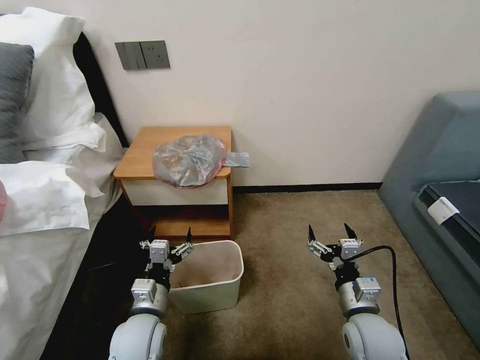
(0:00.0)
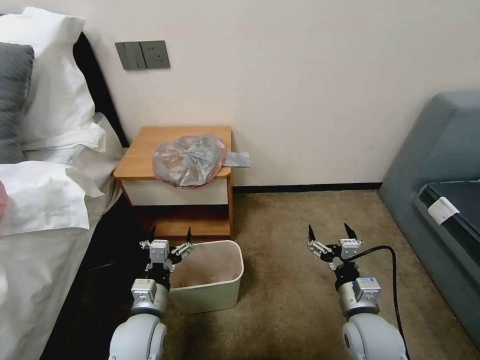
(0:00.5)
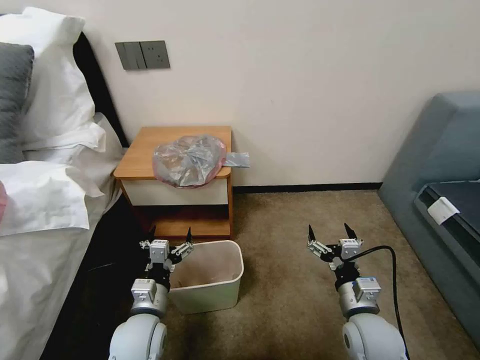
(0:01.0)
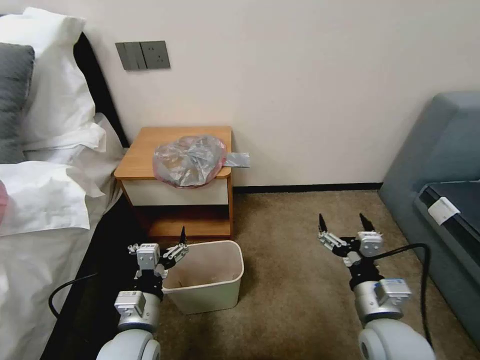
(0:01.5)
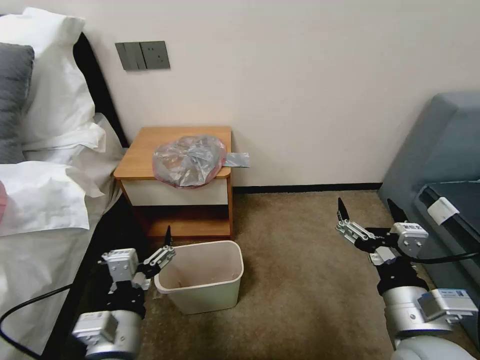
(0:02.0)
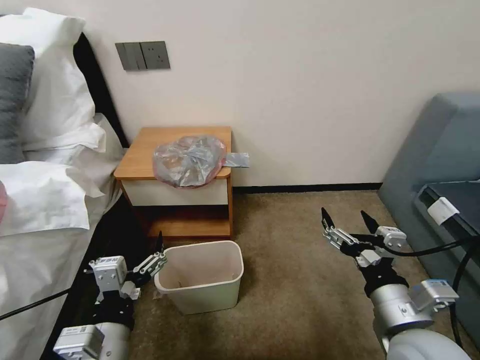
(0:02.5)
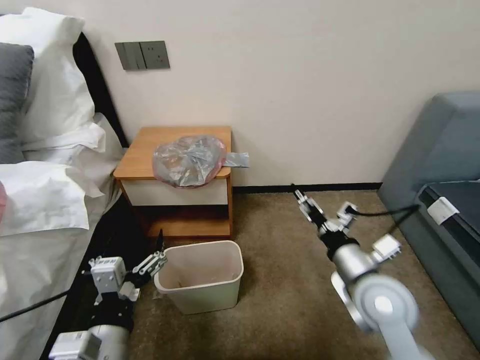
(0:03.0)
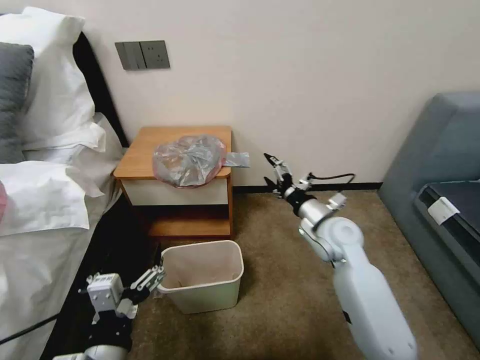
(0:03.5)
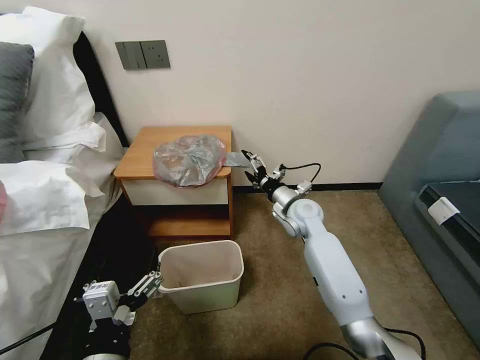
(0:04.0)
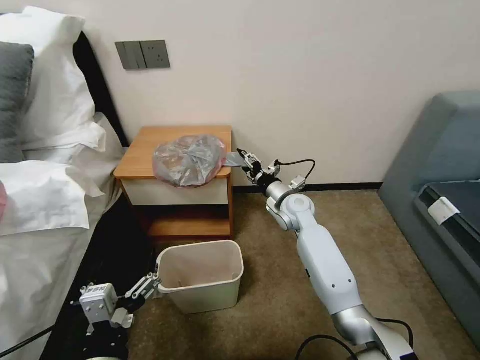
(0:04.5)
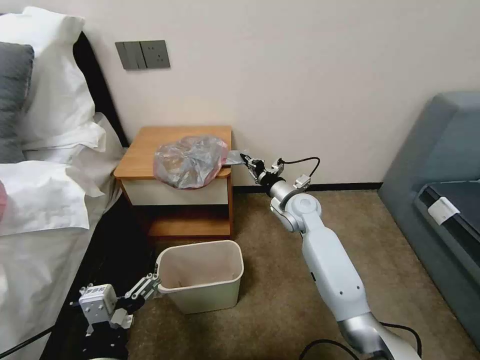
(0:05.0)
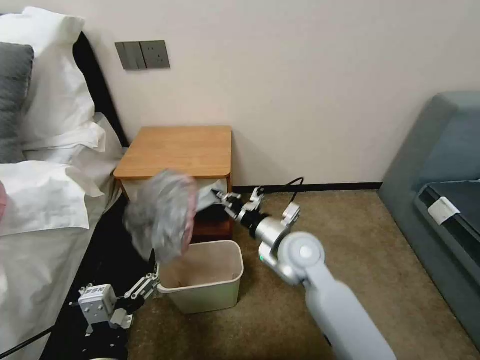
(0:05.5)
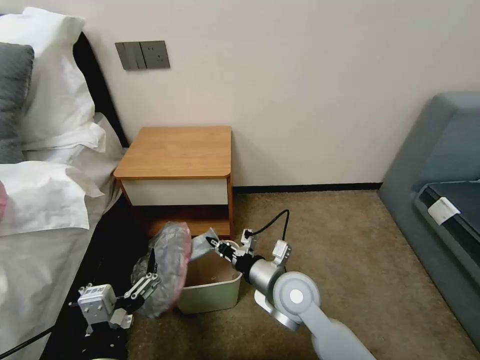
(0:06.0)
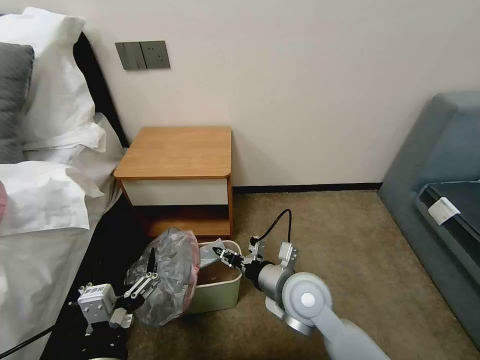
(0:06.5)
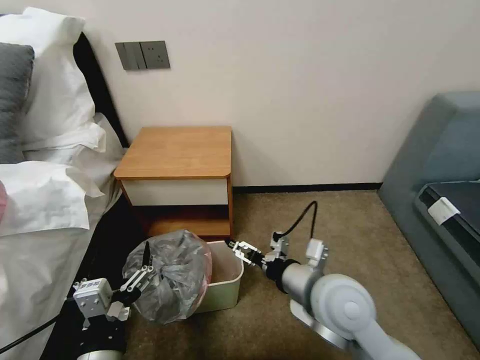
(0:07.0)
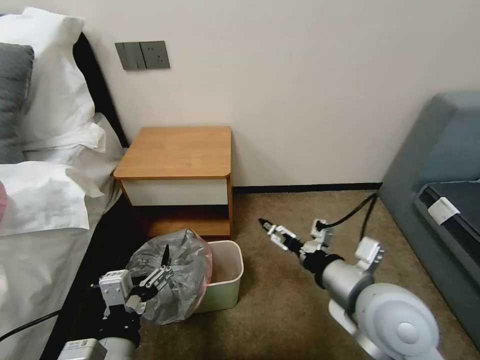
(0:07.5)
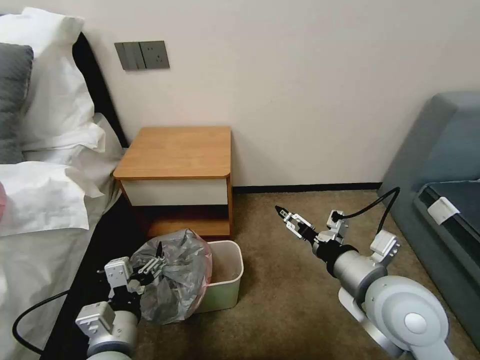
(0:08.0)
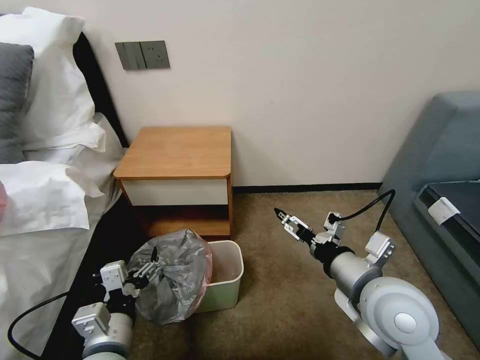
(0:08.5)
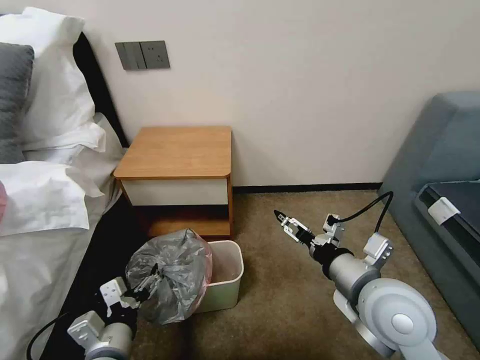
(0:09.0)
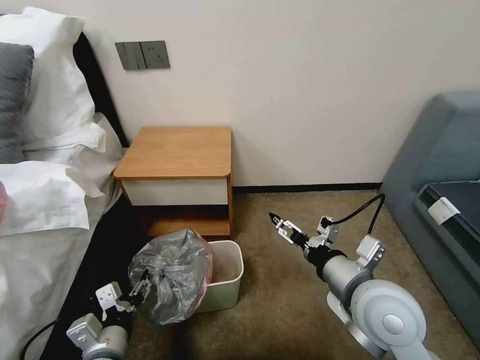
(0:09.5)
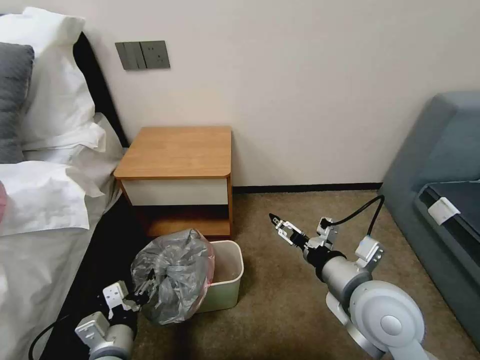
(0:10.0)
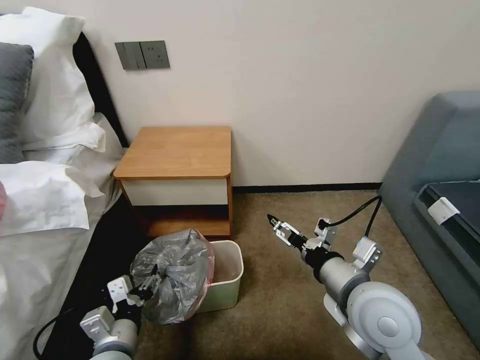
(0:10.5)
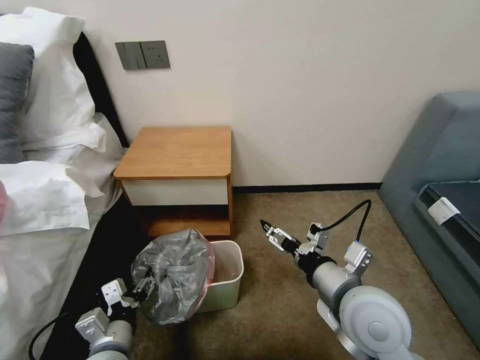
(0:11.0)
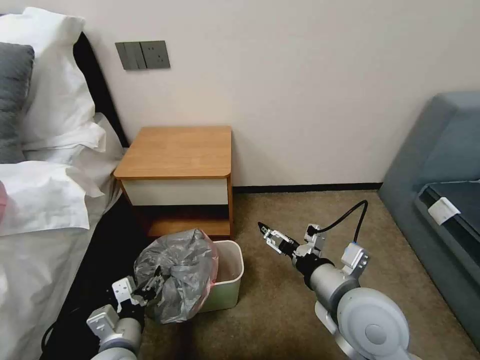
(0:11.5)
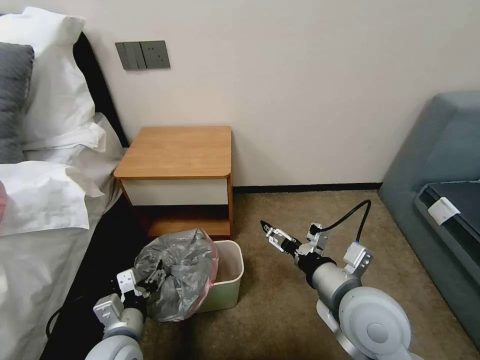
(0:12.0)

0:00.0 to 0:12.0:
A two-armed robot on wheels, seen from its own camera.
Task of the whole recording: Pick up the garbage bag from the table and place it over the trash can.
0:02.0 to 0:04.0: The left gripper is displaced backward by some 5 cm. Meanwhile the right gripper travels forward by approximately 35 cm.
0:04.0 to 0:06.0: The right gripper goes some 20 cm backward, and closes its fingers.
0:06.0 to 0:08.0: The left gripper travels forward by roughly 5 cm. Meanwhile the right gripper moves to the right, upward and backward, roughly 20 cm, and opens.
0:08.0 to 0:10.0: The left gripper moves downward, some 5 cm.
0:10.0 to 0:12.0: The grippers move only a little.

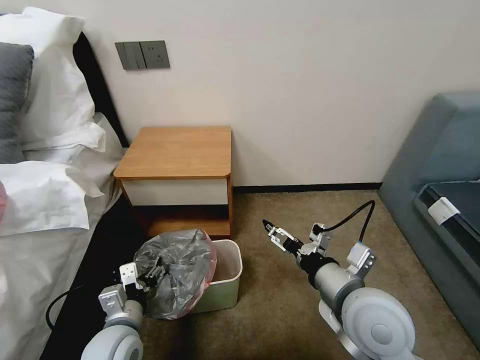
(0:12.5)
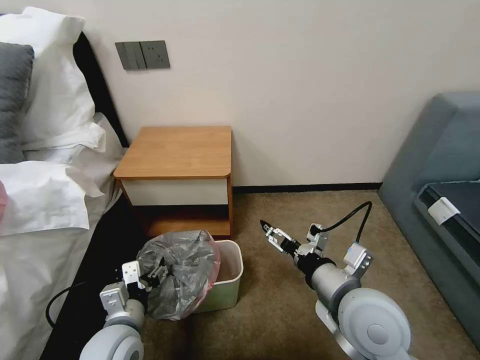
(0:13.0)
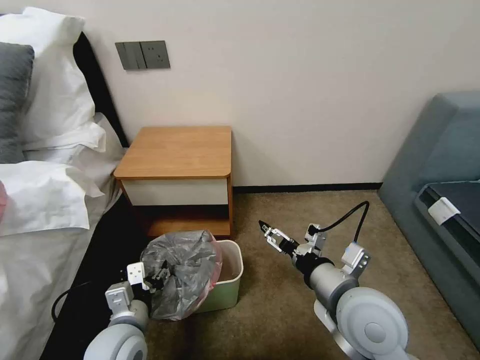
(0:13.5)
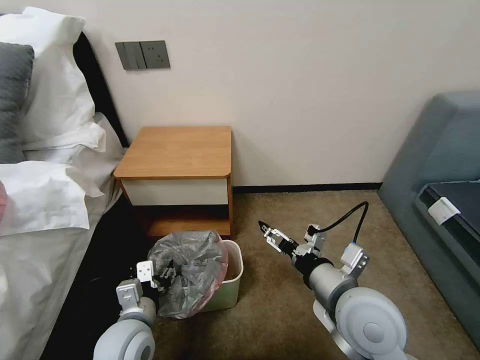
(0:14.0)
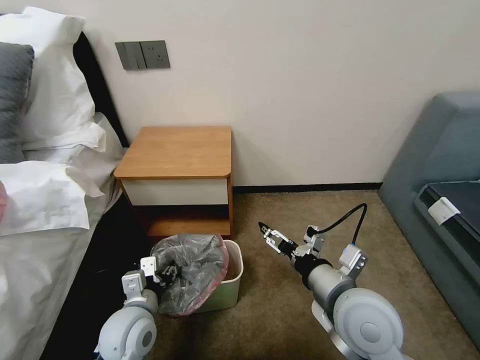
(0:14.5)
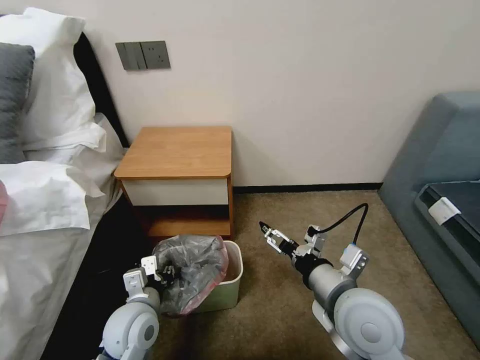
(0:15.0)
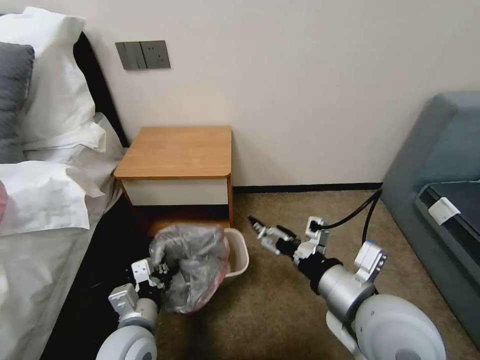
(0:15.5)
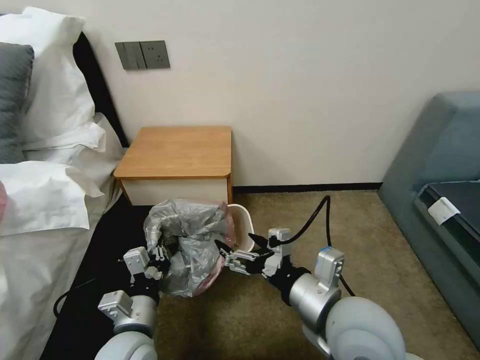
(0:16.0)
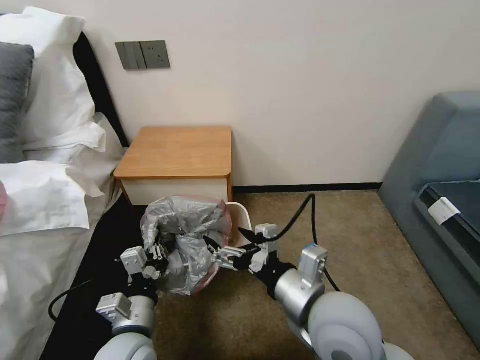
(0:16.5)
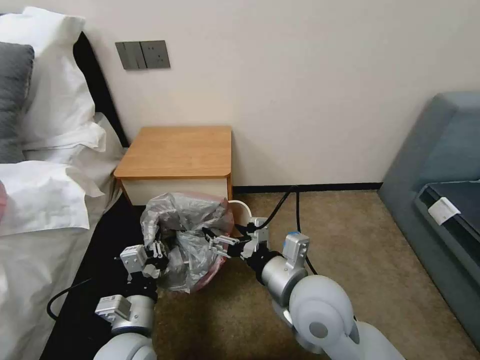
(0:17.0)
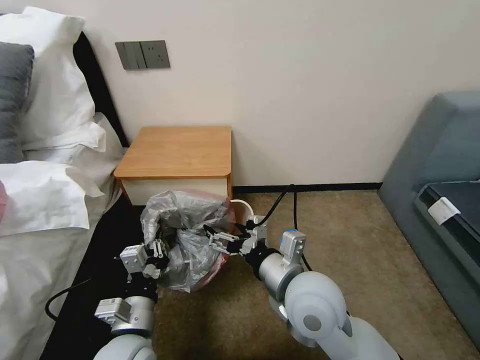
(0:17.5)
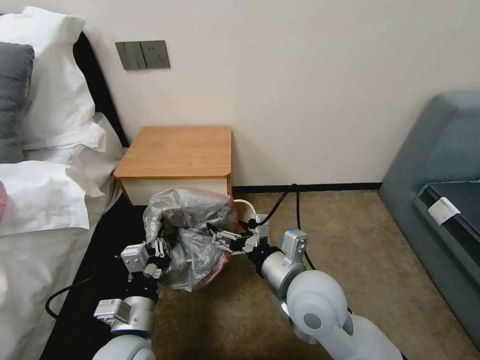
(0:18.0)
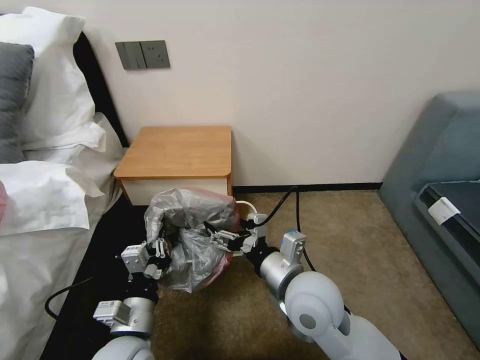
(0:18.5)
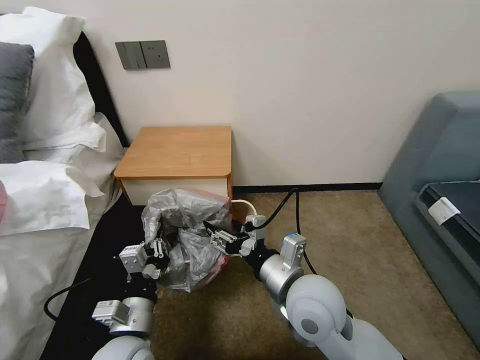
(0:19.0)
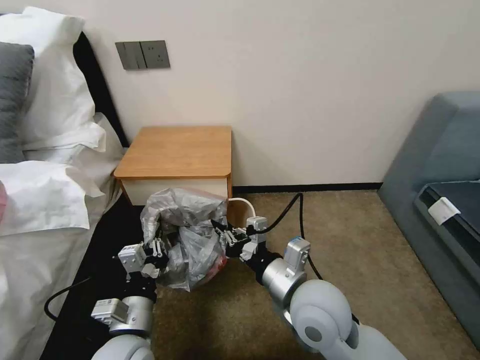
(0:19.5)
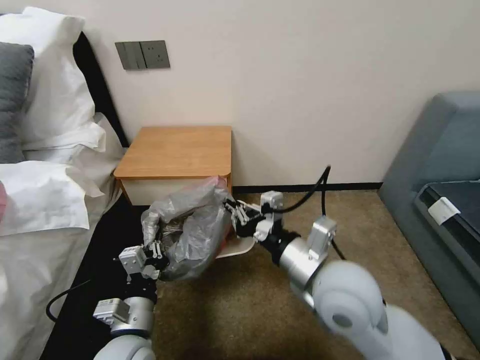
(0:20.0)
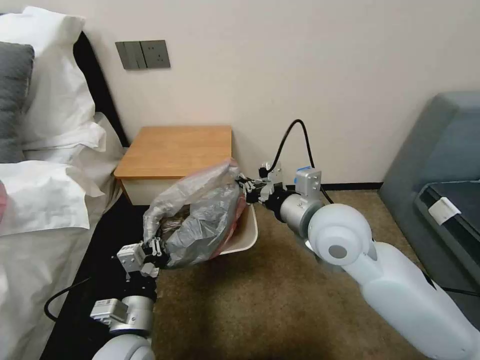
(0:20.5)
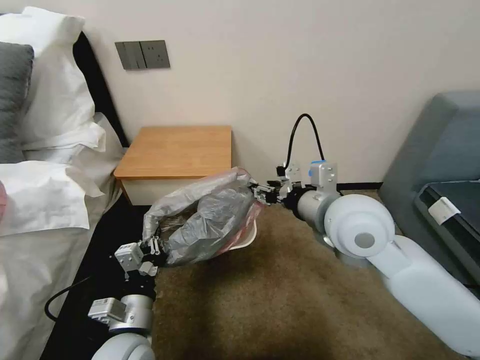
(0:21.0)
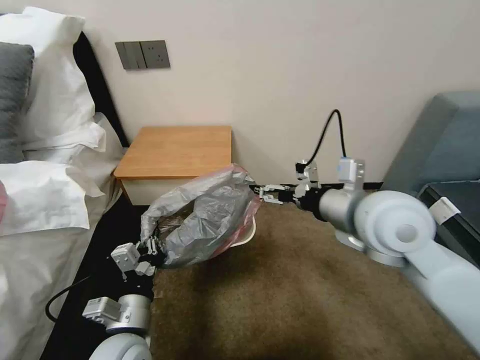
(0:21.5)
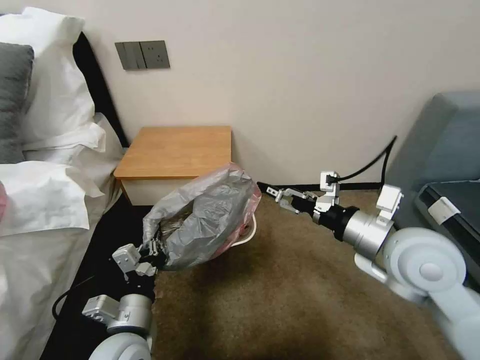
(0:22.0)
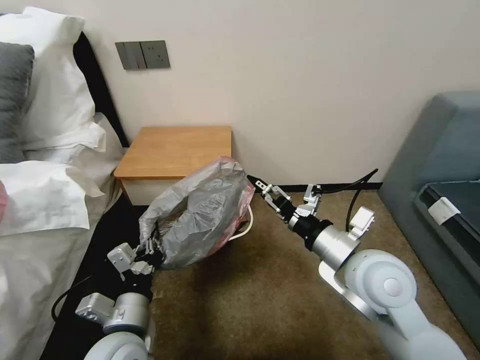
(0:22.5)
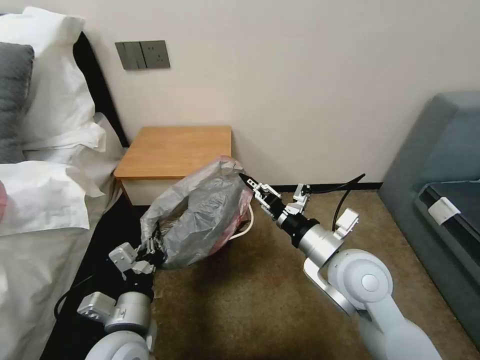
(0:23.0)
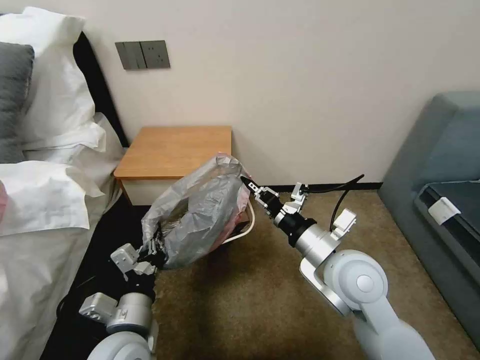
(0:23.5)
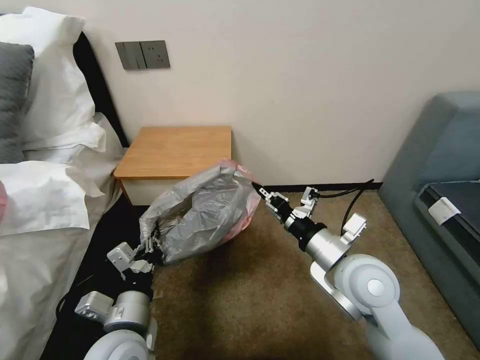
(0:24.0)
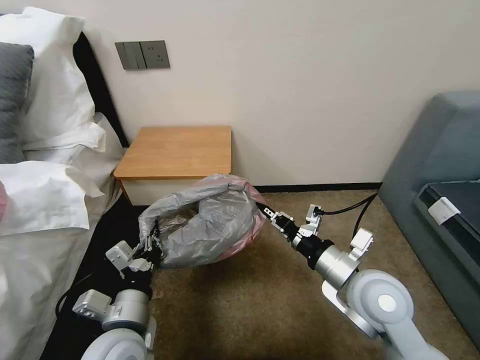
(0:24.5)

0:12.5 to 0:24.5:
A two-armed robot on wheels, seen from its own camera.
Task of the whole recording: Pick up the garbage bag from the table and place it over the trash can.
0:12.5 to 0:14.5: The grippers stay close to where they were, moving slightly.
0:14.5 to 0:16.5: The right gripper heads to the left, covering roughly 5 cm. The left gripper moves approximately 5 cm, and closes up.
0:16.5 to 0:18.5: The right gripper moves about 5 cm.
0:18.5 to 0:20.5: The right gripper shifts about 10 cm upward and forward, and closes up.
0:20.5 to 0:22.5: The right gripper travels to the right and backward by roughly 10 cm, and opens up.
0:22.5 to 0:24.5: The right gripper changes place by about 5 cm, and closes up.

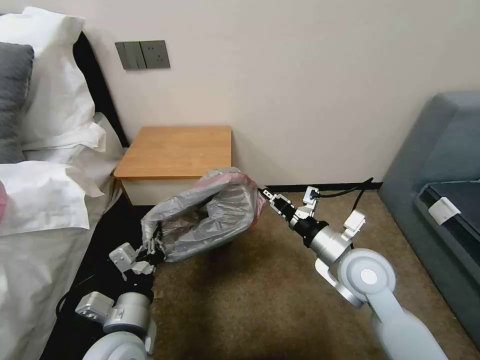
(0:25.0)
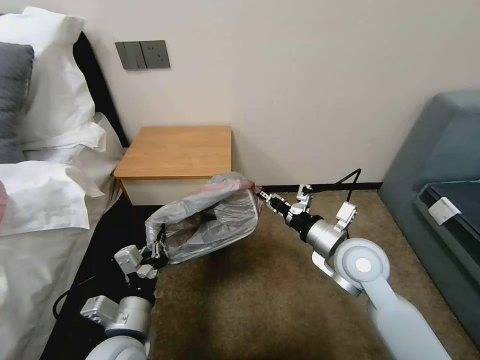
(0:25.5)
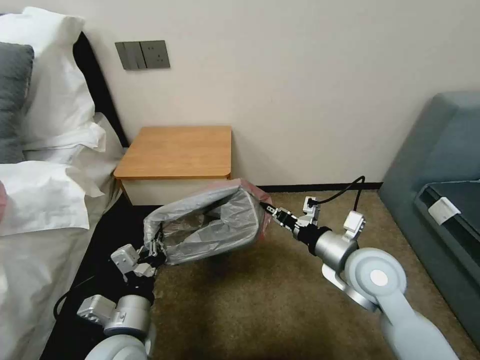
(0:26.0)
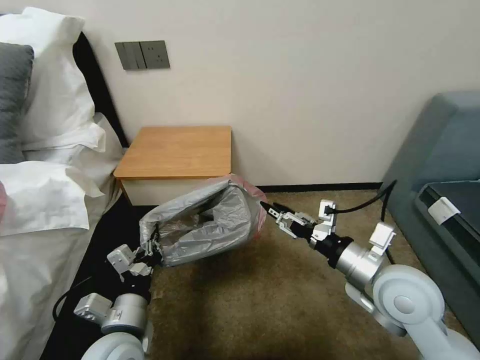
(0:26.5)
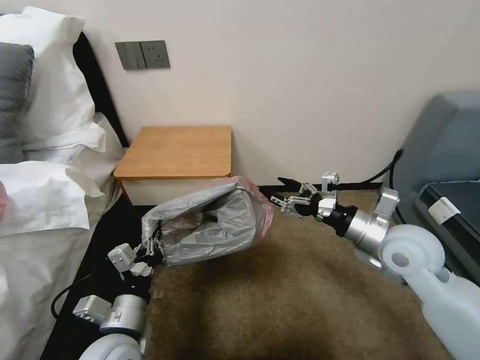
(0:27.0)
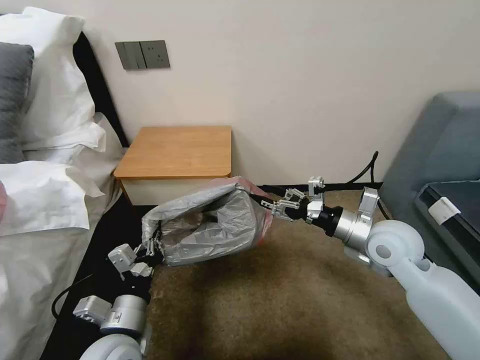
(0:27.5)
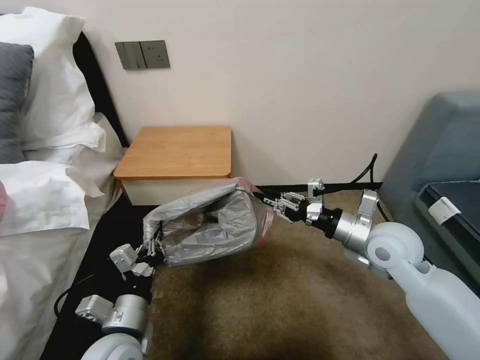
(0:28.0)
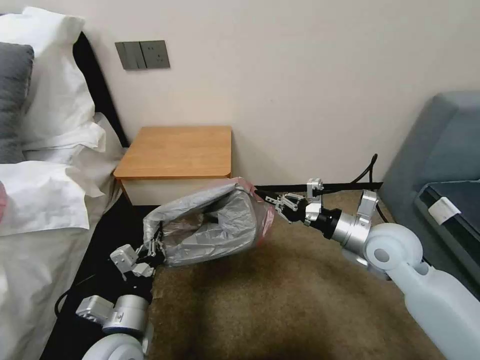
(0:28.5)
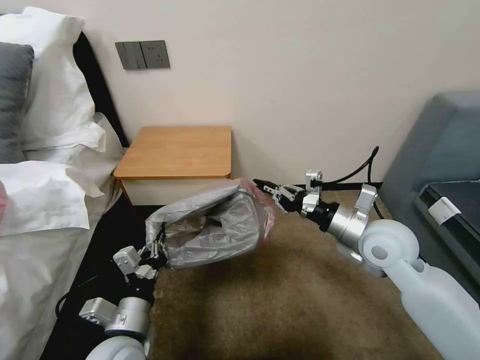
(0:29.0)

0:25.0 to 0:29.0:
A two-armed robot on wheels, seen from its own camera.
Task of the whole recording: Pick up the garbage bag from the table and place it over the trash can.
0:25.0 to 0:27.0: The right gripper shifts about 5 cm to the right, and opens.
0:27.0 to 0:29.0: The right gripper closes.
